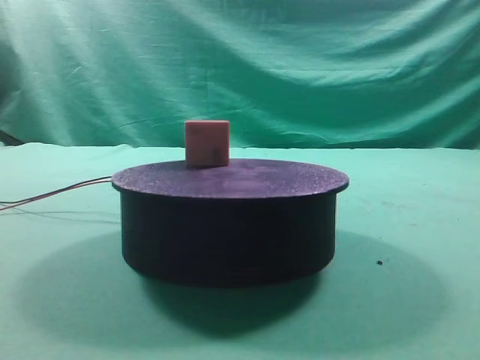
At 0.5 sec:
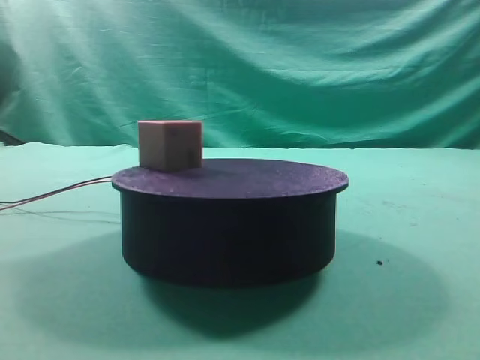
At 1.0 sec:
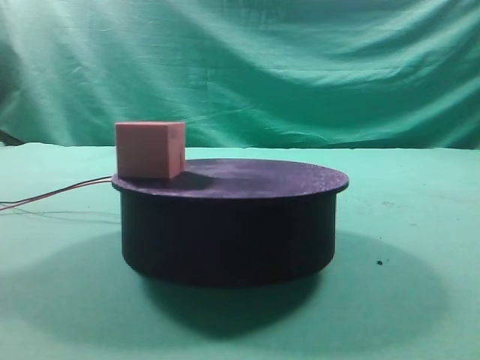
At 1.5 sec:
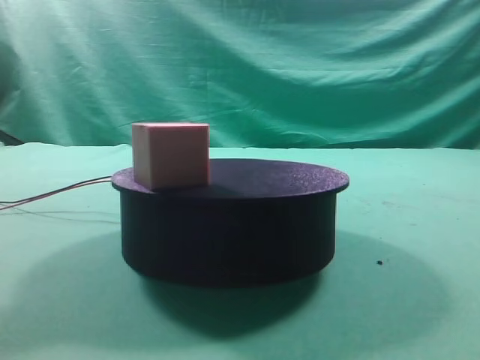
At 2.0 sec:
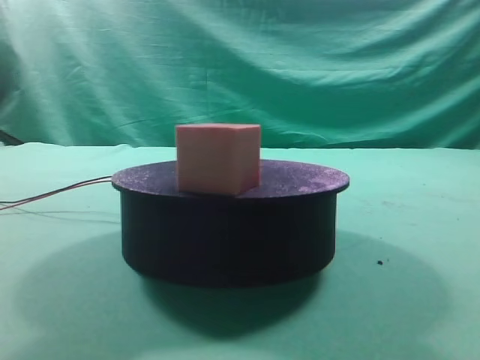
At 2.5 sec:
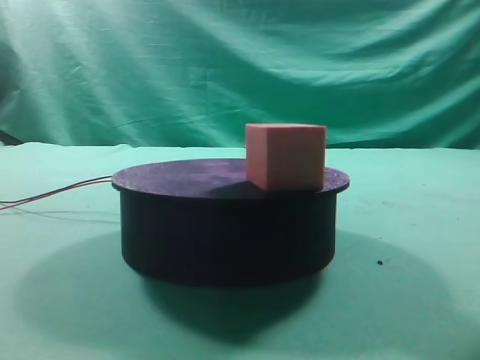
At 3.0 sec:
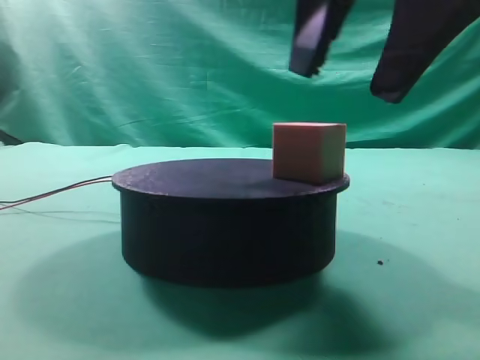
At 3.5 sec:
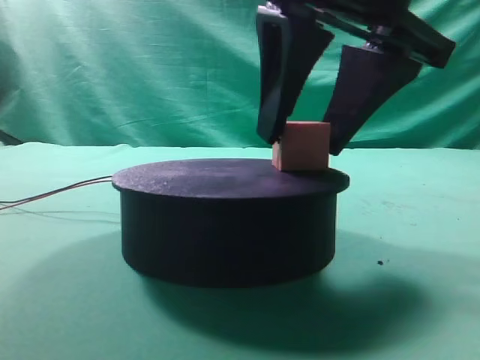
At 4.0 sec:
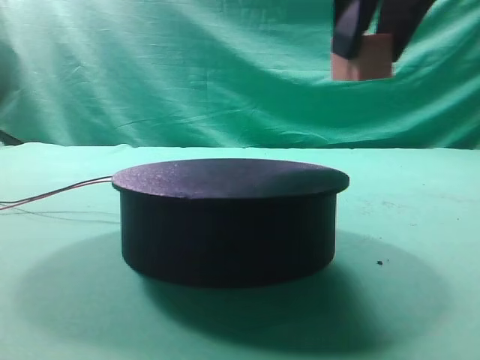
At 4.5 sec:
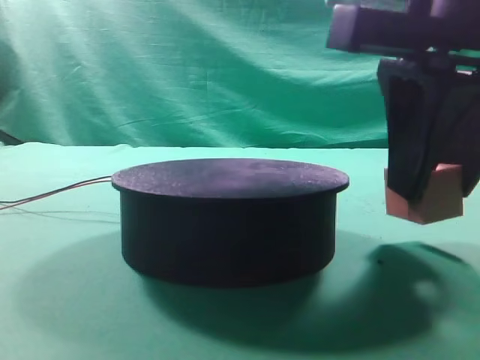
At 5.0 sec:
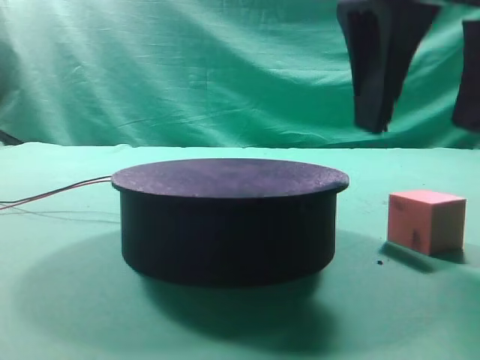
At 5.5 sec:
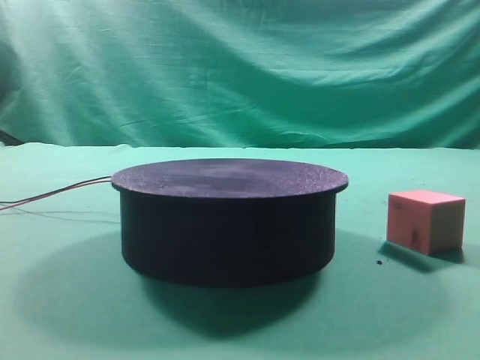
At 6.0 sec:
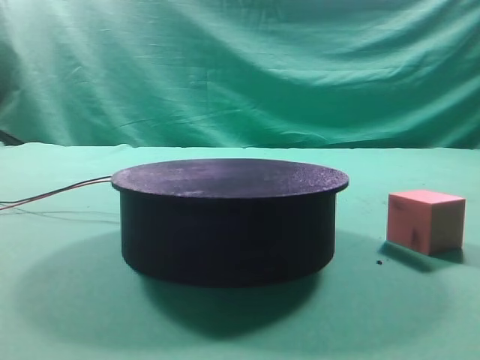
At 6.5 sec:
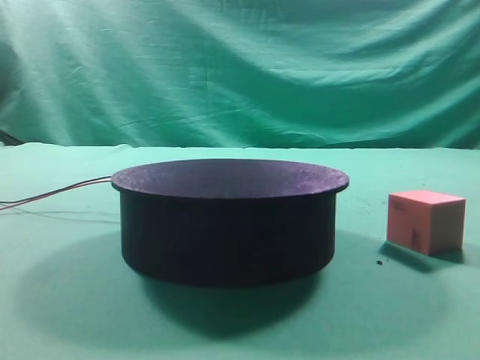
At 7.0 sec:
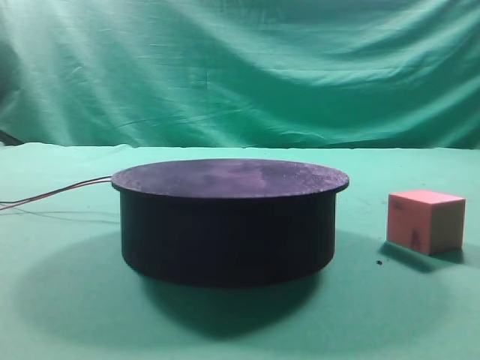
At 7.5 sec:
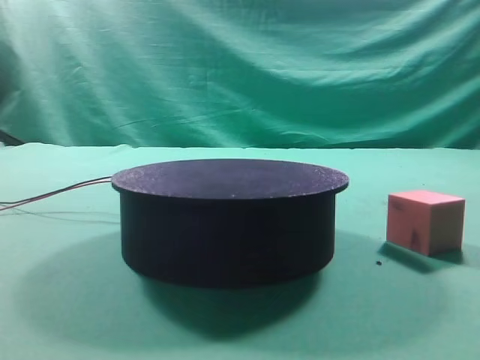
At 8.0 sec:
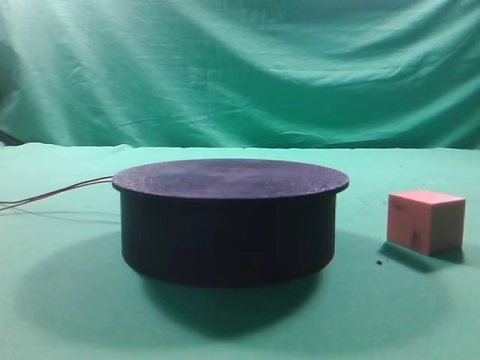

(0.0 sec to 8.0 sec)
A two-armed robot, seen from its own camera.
Task of the whole recording: grasp the rotating cube-shaped block on the turntable and place it on the table.
Step, 0.0 sec - 3.5 sec: Grasp the rotating cube-shaped block on the turntable.
Step, 4.0 sec - 4.5 sec: Place the cube on the desk.
